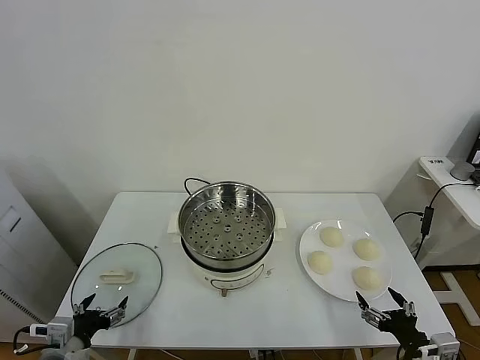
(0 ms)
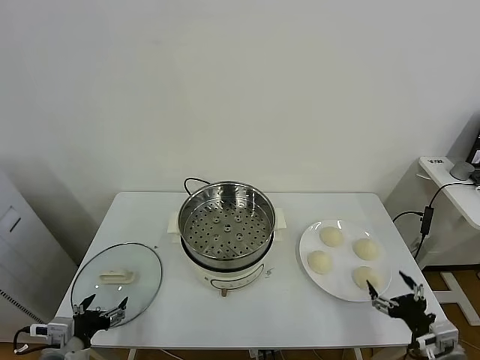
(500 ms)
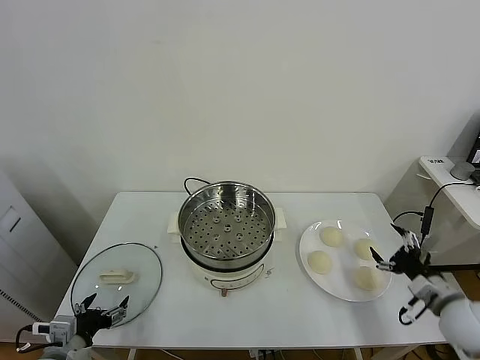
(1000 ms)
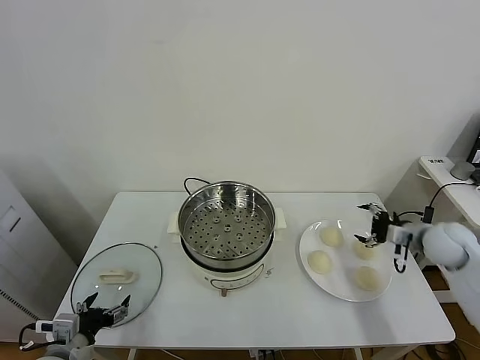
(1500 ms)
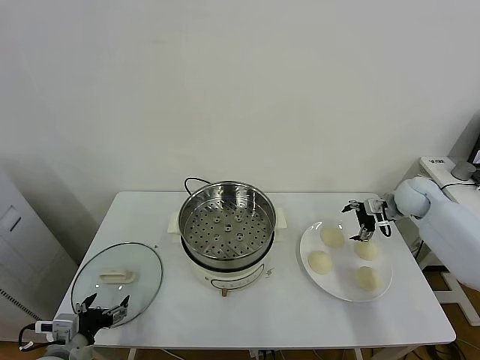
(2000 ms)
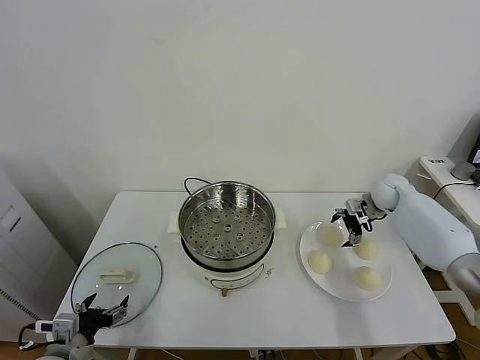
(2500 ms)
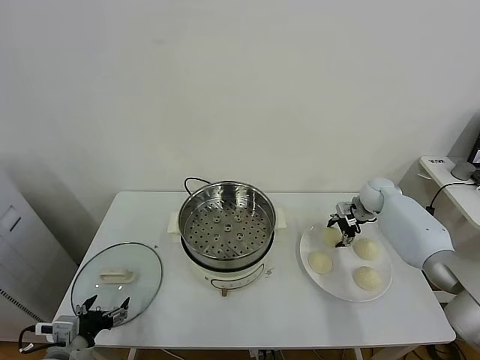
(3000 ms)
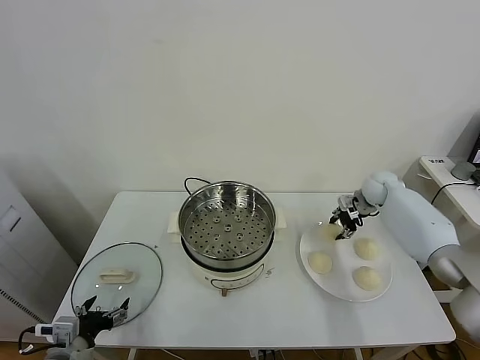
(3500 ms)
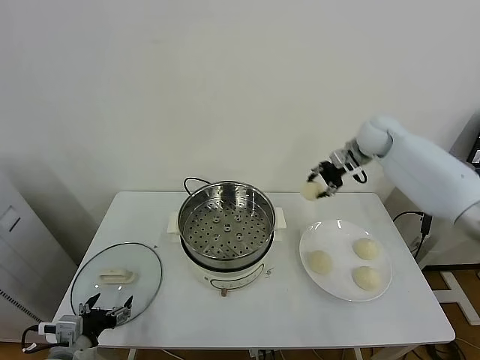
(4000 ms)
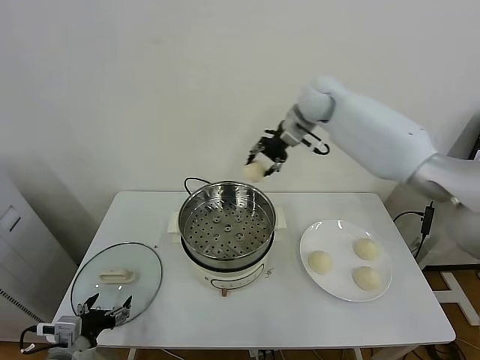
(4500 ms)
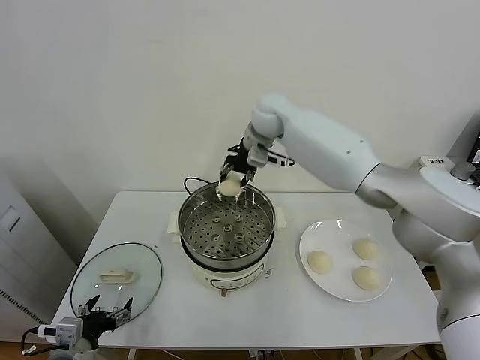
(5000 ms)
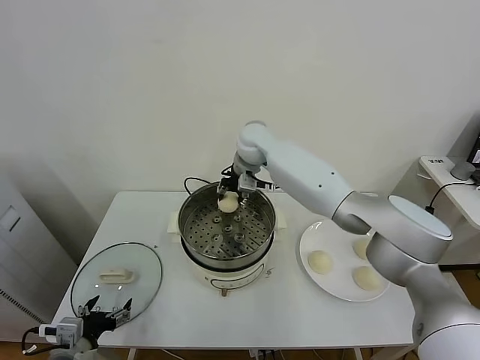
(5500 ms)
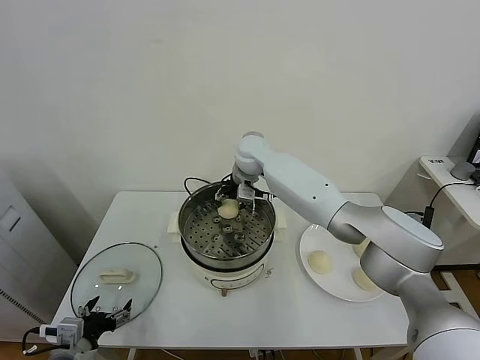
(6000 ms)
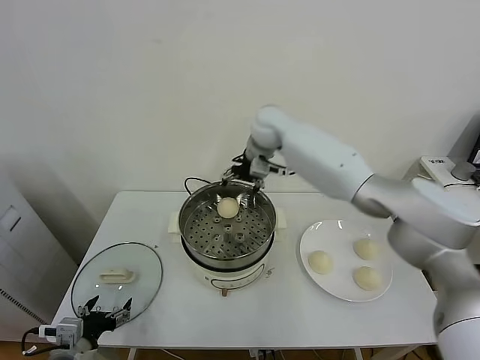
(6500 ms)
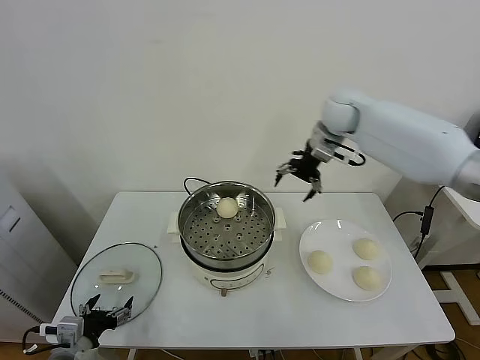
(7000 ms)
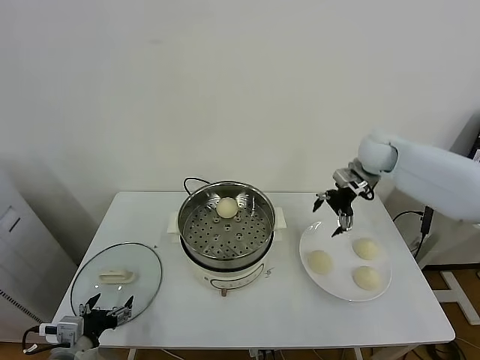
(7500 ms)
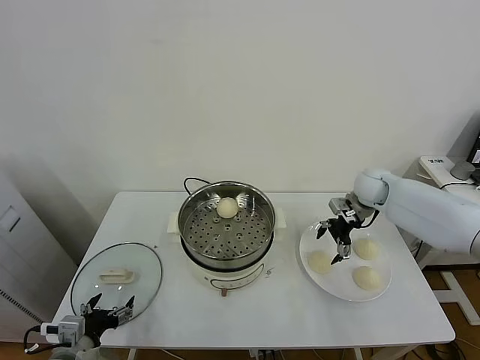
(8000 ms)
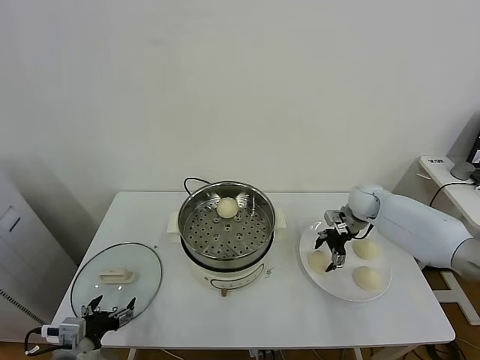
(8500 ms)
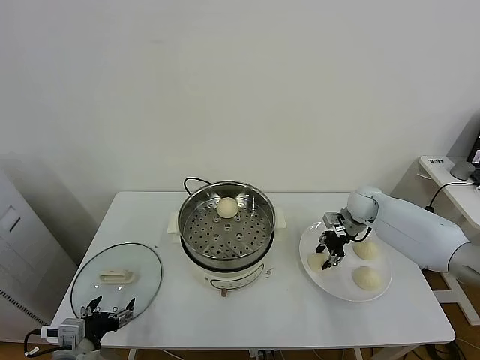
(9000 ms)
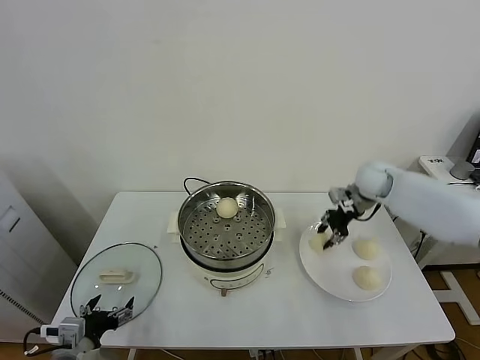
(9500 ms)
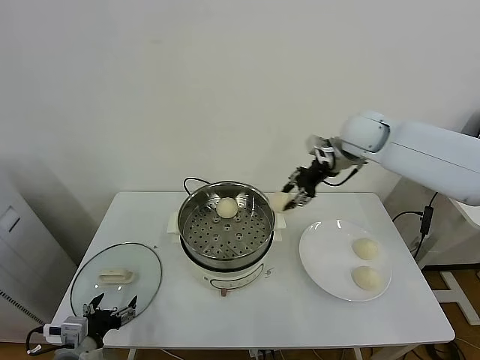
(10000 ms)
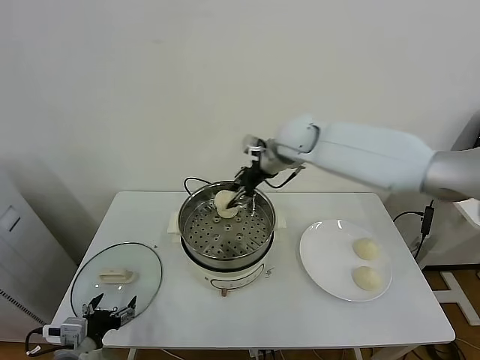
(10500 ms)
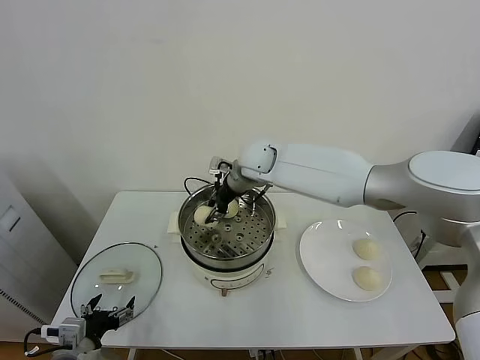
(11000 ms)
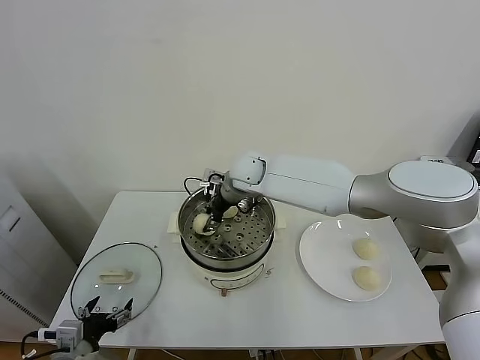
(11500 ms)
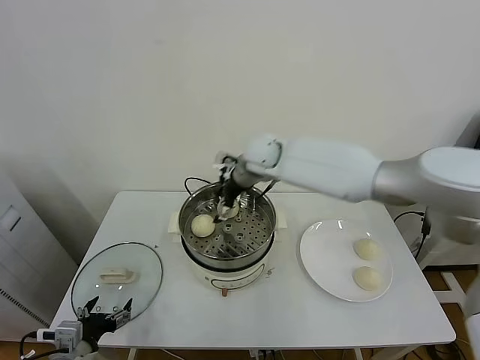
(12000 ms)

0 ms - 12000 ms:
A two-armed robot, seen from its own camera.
Task of the whole recording: take steamed baozi put them in steamer.
Step, 0 ms - 3000 ms: Grasp the baozi in the plate with right gripper.
Step, 3500 ms - 6000 ms: Place the baozi on the steamer with right gripper.
Step, 6500 ms - 8500 ms: Grasp the baozi in the plate with right gripper.
Step, 9000 ms - 11500 ms: Place the baozi on the steamer with right gripper.
2000 ms - 4000 ms: The right gripper shifts about 25 cm upward and to the left, and closes up.
4000 ms - 6000 ms: The right gripper is displaced to the left and downward by some 25 cm, and opens its fingers.
6000 ms - 8000 ms: The right gripper goes some 30 cm to the right.
8000 ms - 10000 ms: The right gripper goes approximately 25 cm upward and to the left, and closes.
10000 ms - 12000 ms: The right gripper heads to the left, covering roughly 10 cm, and opens its fingers.

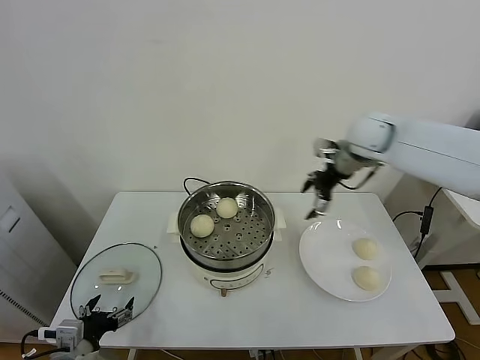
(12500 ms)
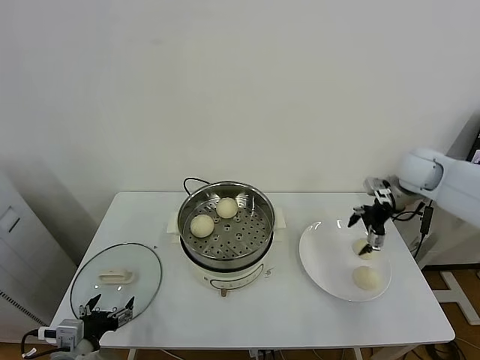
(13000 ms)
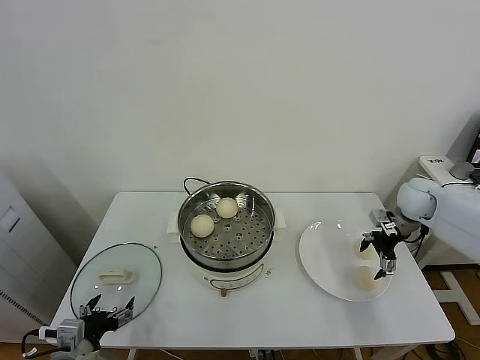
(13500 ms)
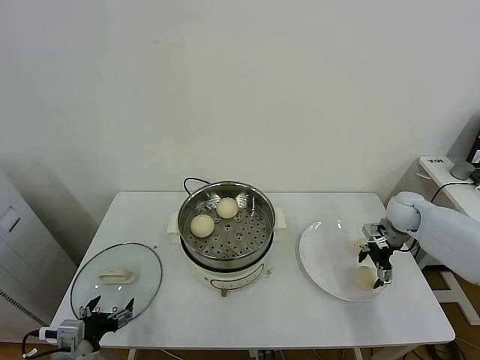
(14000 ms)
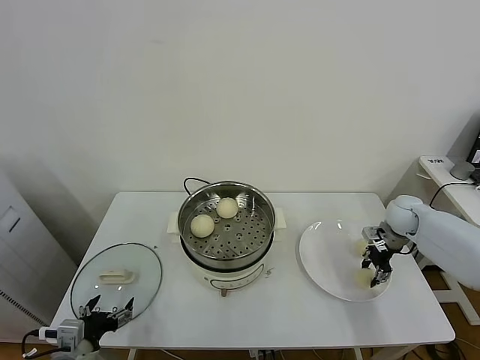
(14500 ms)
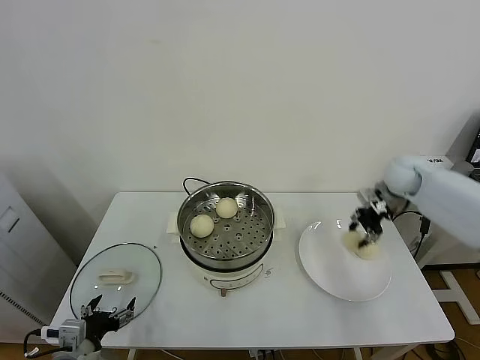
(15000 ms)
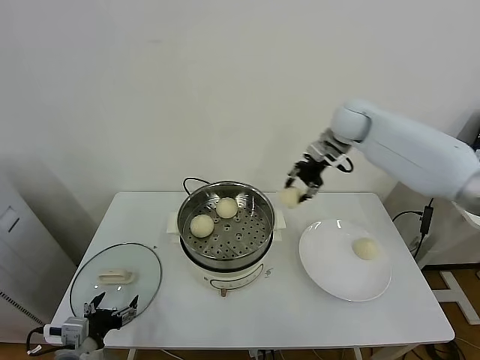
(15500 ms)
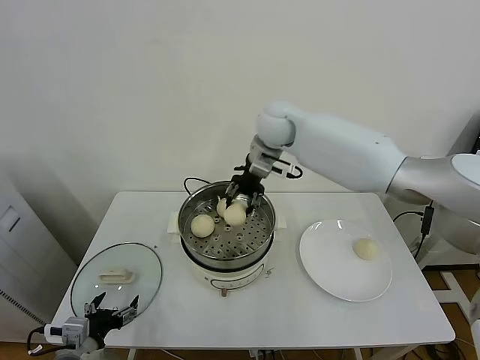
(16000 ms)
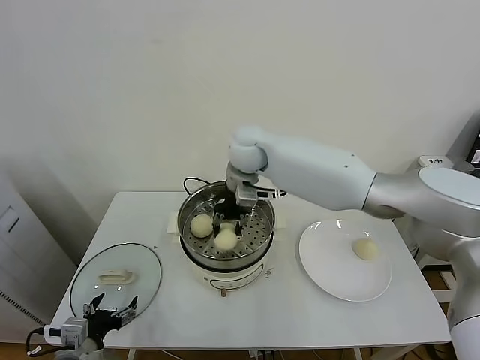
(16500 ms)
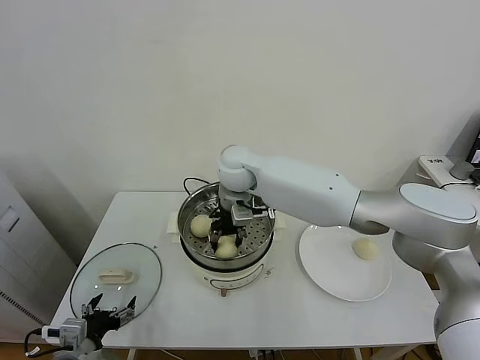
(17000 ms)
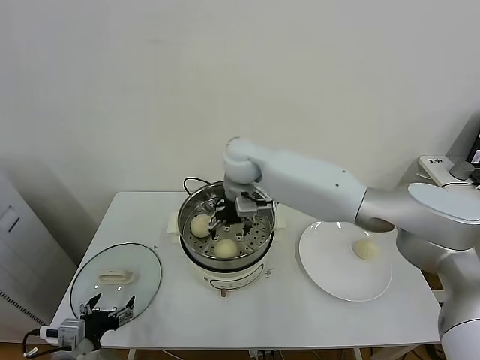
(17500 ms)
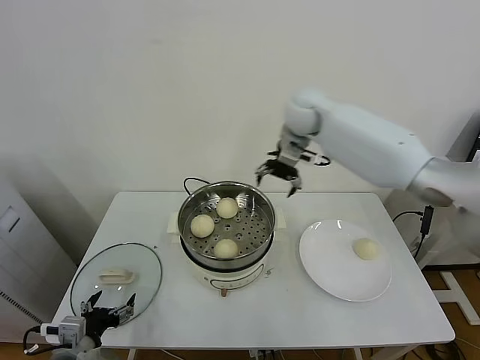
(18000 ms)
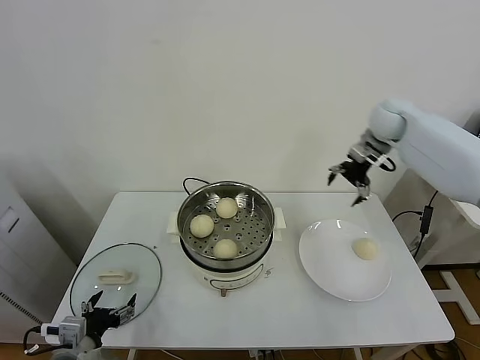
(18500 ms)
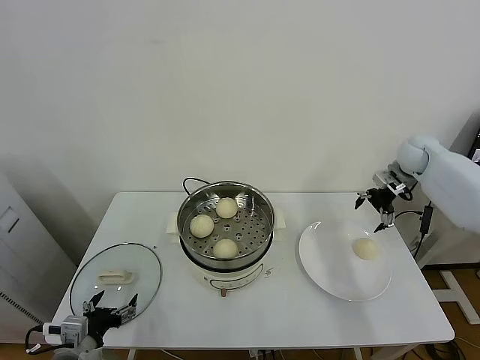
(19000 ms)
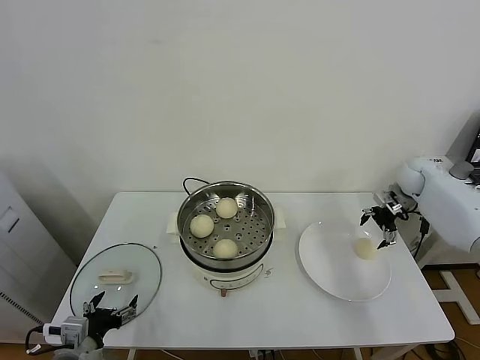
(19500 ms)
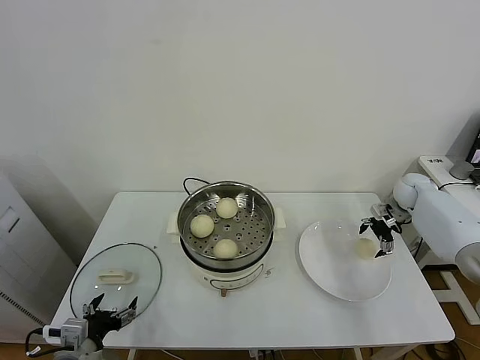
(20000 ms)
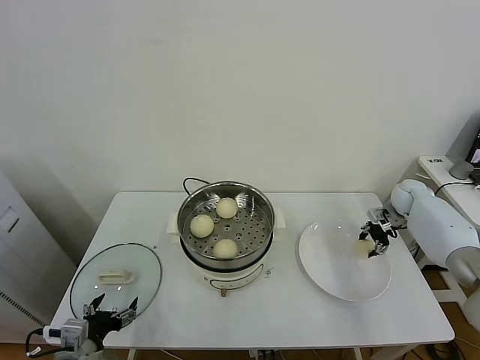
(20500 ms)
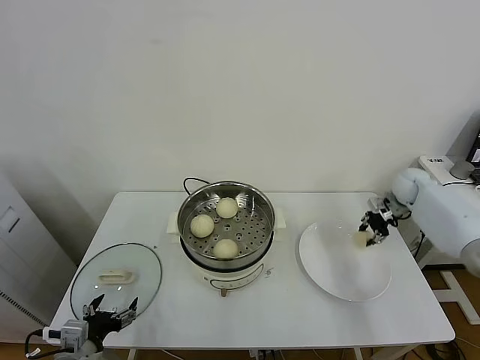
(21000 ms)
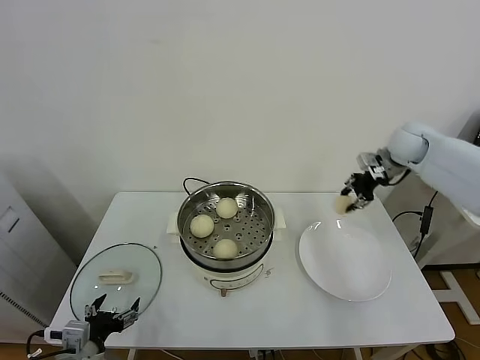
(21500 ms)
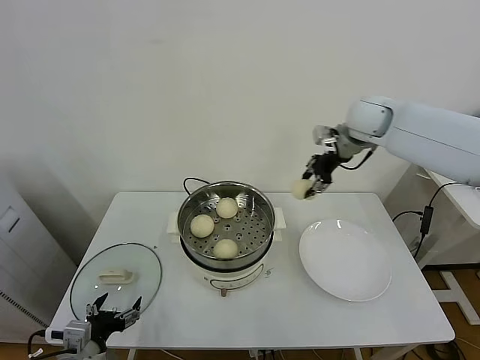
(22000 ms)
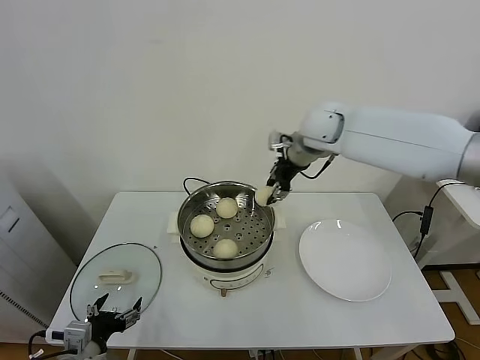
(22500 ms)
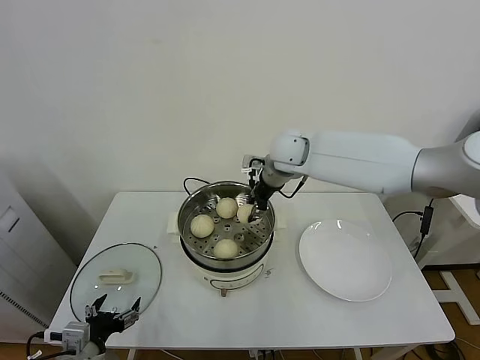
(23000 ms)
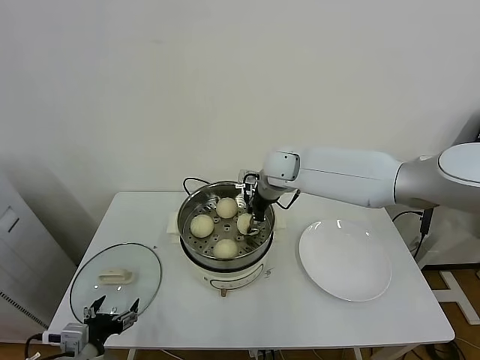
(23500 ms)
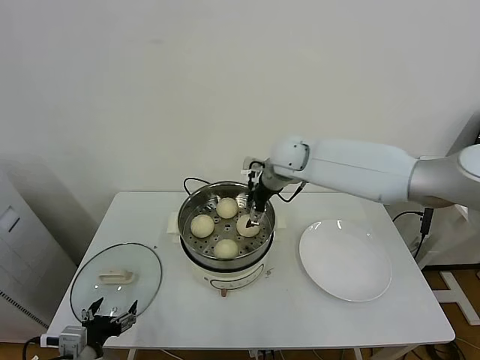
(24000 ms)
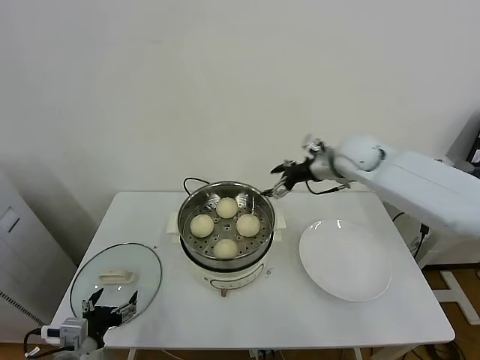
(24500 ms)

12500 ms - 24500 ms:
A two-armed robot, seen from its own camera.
Task of the whole recording: take steamed baozi put them in steamer.
Step, 12500 ms - 14000 ms: Grasp the baozi in the plate with right gripper.
Step, 14500 ms - 17000 ms: Place the baozi on the steamer with right gripper.
Step, 17500 ms - 20500 ms: Grasp the baozi in the plate with right gripper.
Step, 21000 ms - 23500 ms: Place the baozi on the steamer with right gripper.
12500 ms - 14500 ms: The right gripper heads downward and to the right, covering about 25 cm, and closes its fingers.
14500 ms - 16500 ms: The right gripper moves to the left and upward, approximately 50 cm.
16500 ms - 18500 ms: The right gripper is displaced to the right by about 35 cm, and opens up.
18500 ms - 20500 ms: The right gripper shifts approximately 25 cm downward and to the right, and closes up.
20500 ms - 22500 ms: The right gripper moves to the left and upward, about 40 cm.
22500 ms - 24500 ms: The right gripper travels to the right and downward by some 10 cm, and opens.

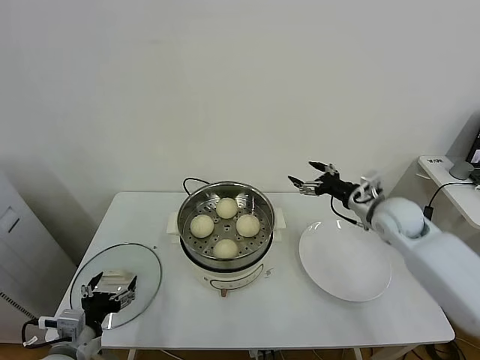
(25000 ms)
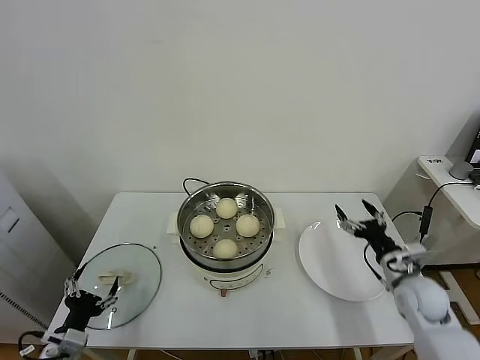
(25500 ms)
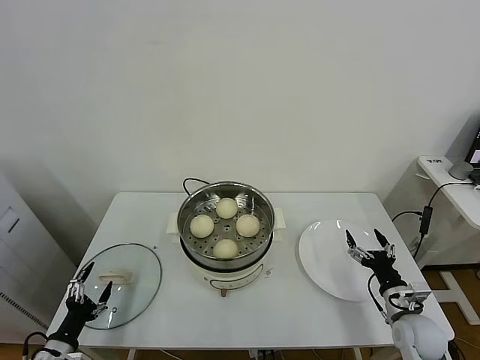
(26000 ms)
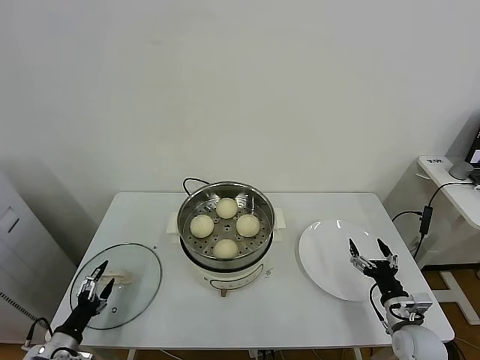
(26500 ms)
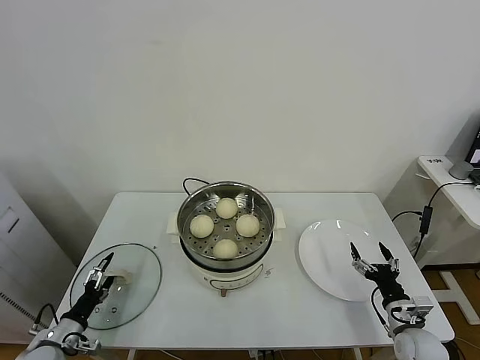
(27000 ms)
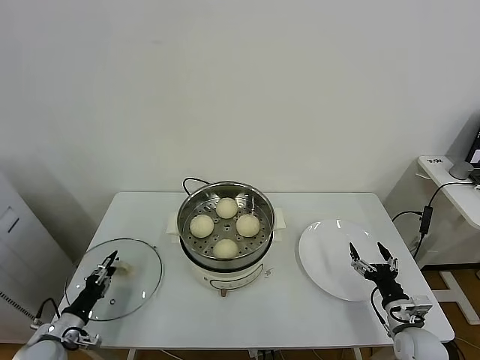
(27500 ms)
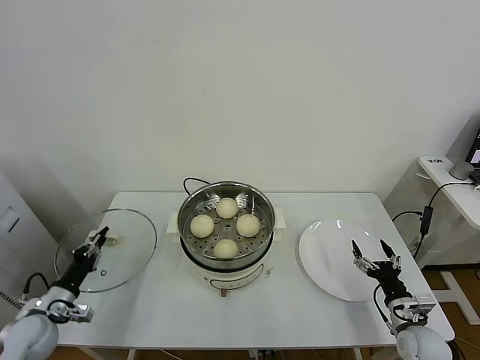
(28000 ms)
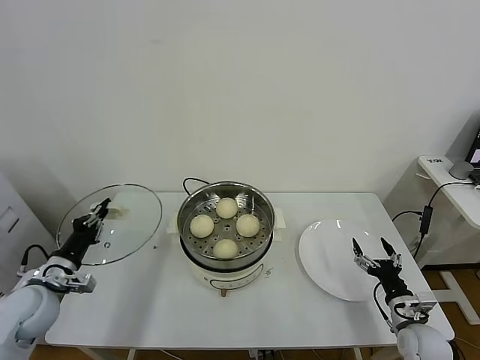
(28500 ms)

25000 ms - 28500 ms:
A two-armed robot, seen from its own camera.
Task of the whole recording: take steamed baozi put them in steamer.
Step, 25000 ms - 28000 ms: Grasp the pot lid with left gripper.
25000 ms - 27000 ms: The left gripper moves downward and to the left, about 15 cm. Meanwhile the right gripper heads downward and backward, covering about 30 cm.
27000 ms - 28500 ms: The left gripper goes about 15 cm upward and forward, and closes.
